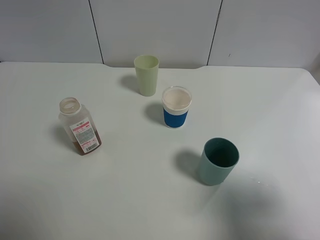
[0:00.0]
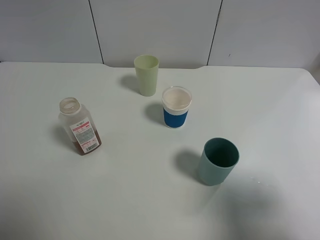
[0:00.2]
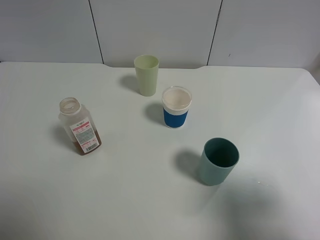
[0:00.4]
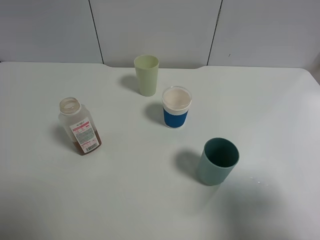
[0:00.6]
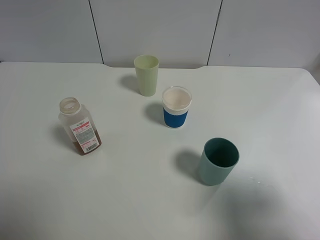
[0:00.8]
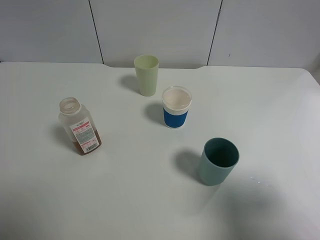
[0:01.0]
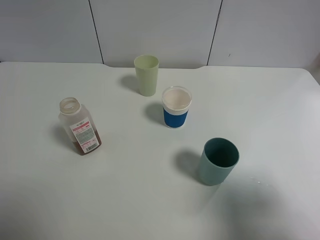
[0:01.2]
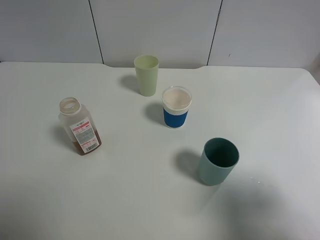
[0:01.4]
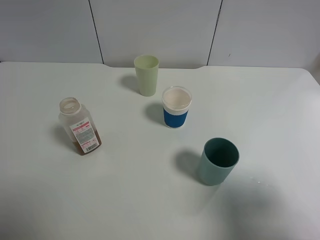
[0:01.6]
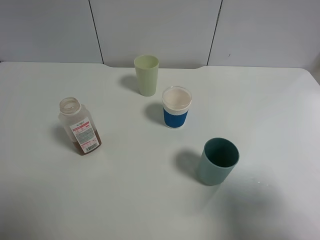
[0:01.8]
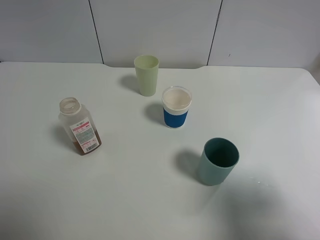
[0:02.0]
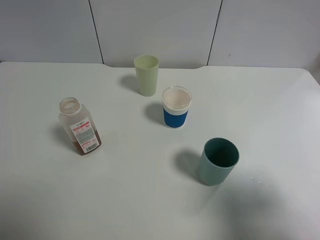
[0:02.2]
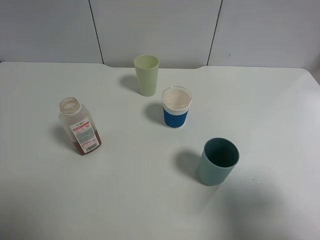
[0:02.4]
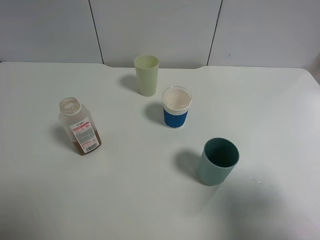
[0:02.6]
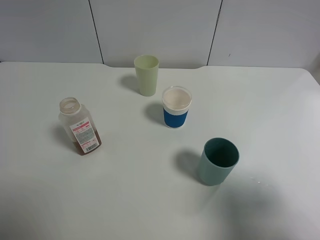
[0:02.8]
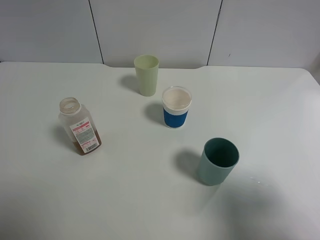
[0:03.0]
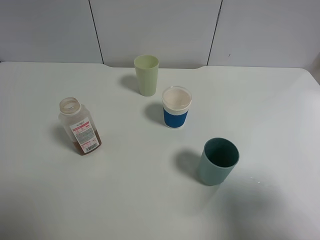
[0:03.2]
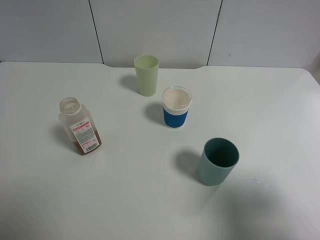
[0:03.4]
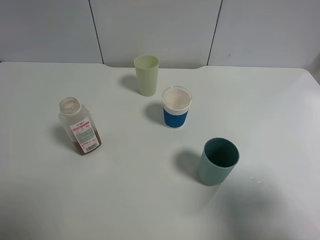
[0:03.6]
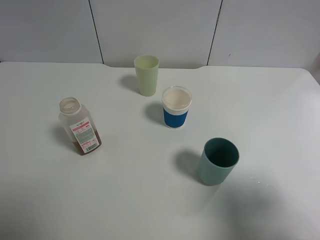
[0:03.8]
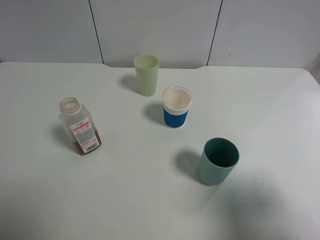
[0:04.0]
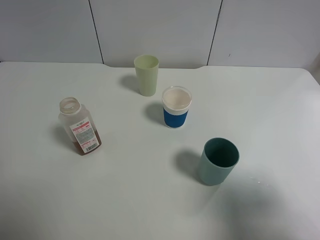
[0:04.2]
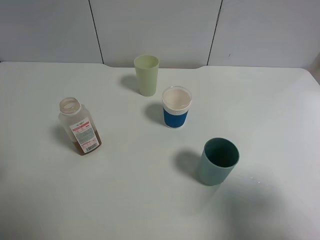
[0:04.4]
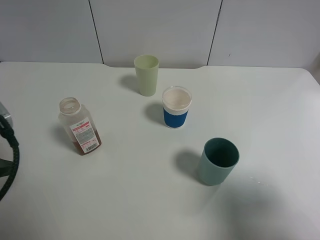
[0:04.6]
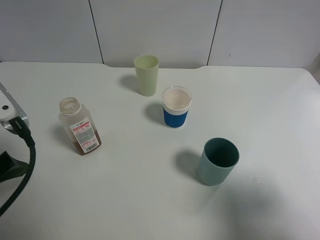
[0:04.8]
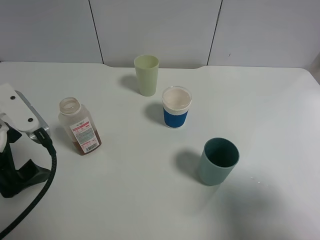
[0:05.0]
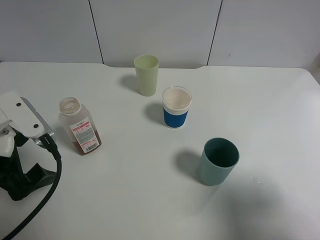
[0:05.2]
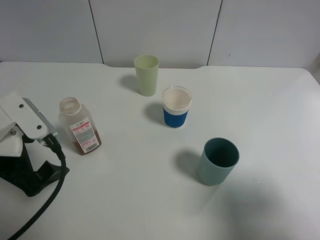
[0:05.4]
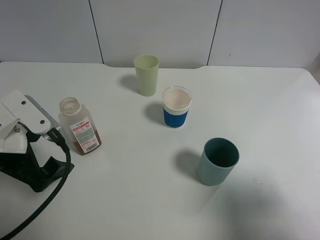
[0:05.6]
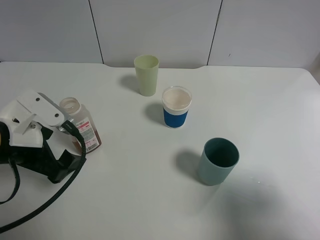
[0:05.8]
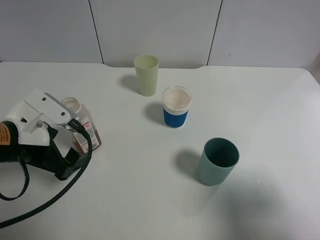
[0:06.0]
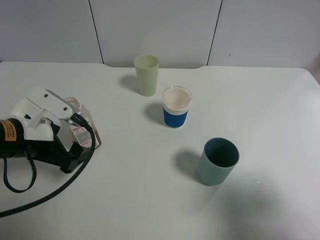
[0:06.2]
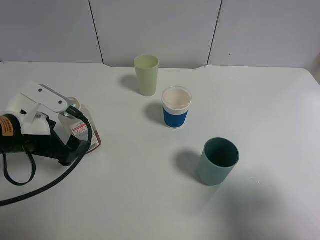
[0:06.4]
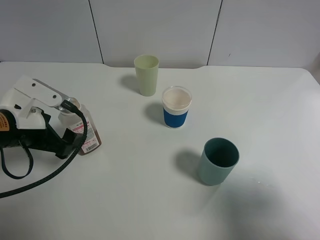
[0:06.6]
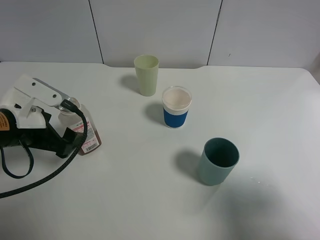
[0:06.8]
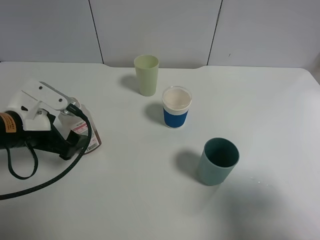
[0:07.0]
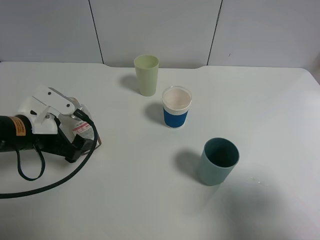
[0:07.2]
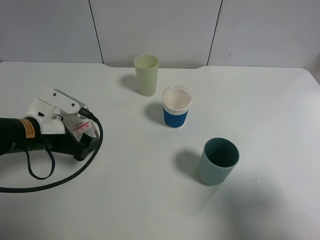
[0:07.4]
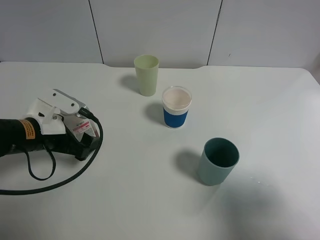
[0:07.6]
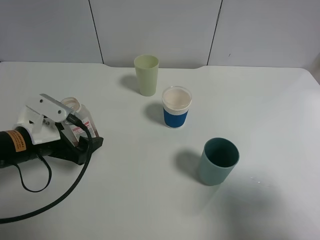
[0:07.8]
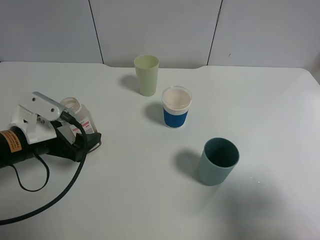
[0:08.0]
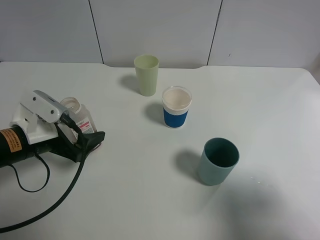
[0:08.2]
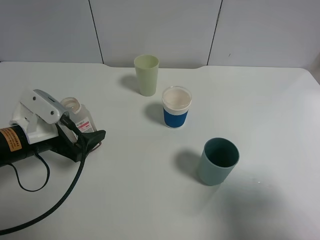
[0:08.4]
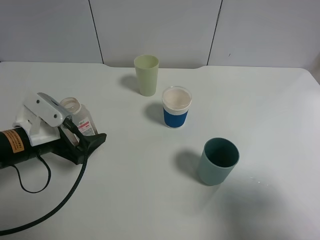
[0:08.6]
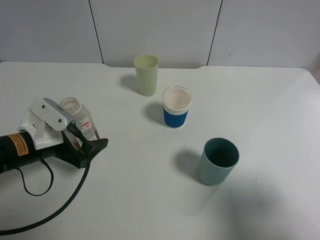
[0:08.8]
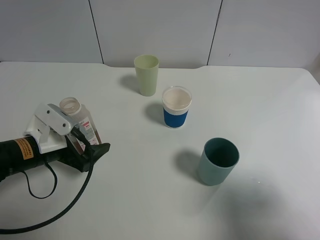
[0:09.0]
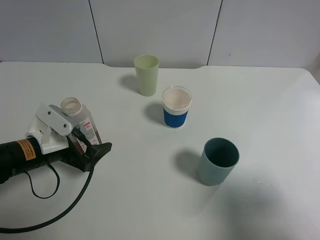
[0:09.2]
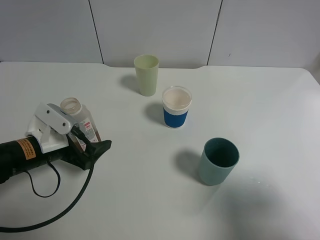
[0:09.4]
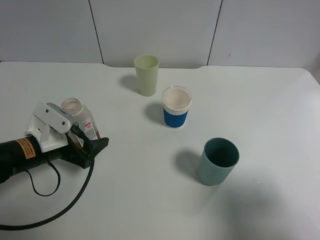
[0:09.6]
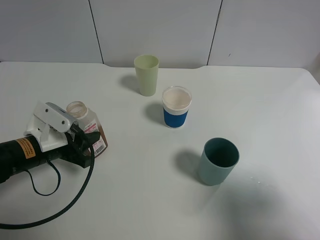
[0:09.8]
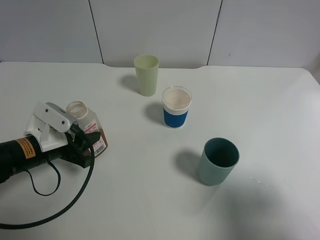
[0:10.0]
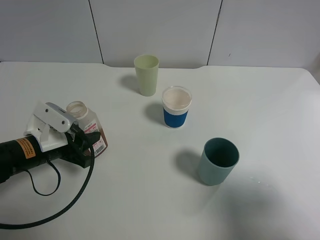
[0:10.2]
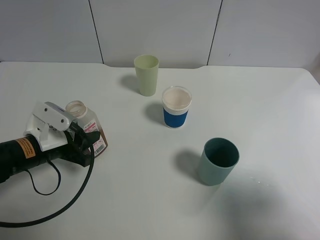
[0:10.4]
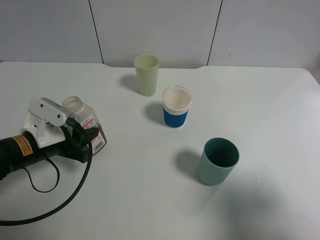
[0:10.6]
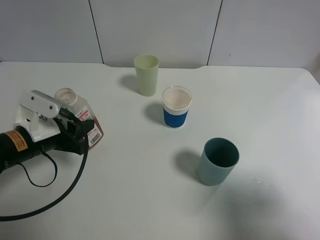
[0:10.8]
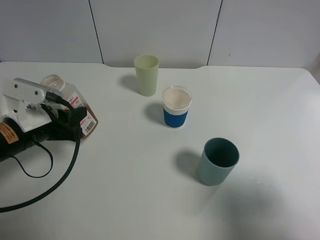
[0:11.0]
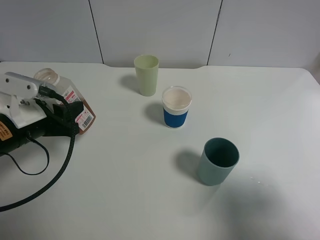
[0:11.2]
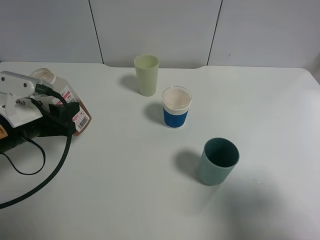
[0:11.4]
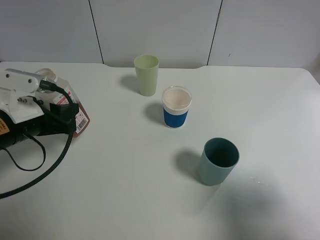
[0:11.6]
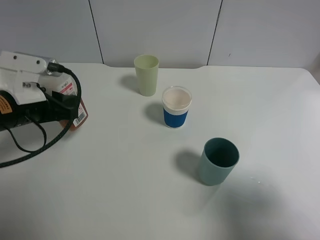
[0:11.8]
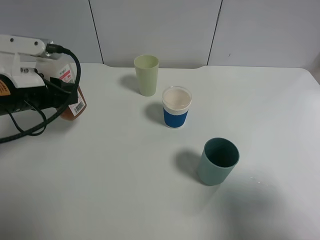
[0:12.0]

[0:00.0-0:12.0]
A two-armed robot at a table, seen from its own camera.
Task of the whole recording: use a gripper to hold the bottle of the drink and pour it into a random cup.
Step, 0:00.0 to 0:10.0: Grasp the cranberry juice bottle with the left gripper.
0:00.0 to 0:03.0: Neither gripper changes place.
0:04.4 to 0:06.0: The left gripper shifts approximately 15 cm downward, to the right and forward.
0:06.0 to 0:07.6: The left gripper moves roughly 5 cm.
0:07.6 to 0:09.0: The grippers make only small movements.
0:09.0 to 0:10.4: The left gripper closes up.
0:10.4 to 0:12.0: The left gripper heads upward, covering about 10 cm.

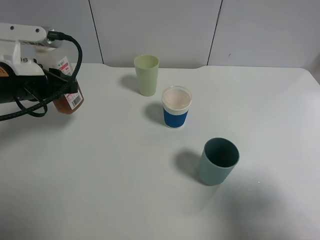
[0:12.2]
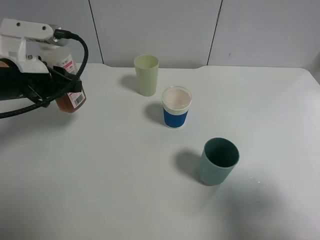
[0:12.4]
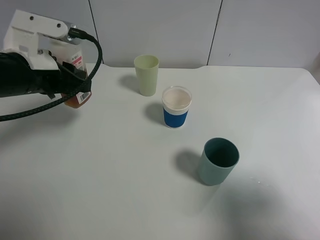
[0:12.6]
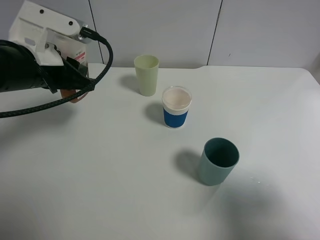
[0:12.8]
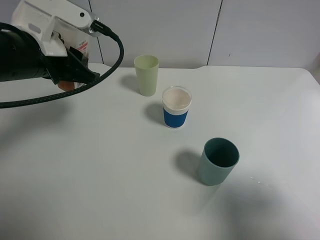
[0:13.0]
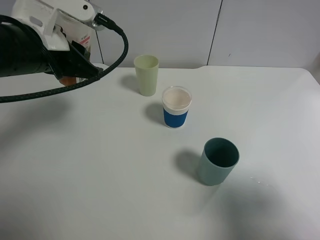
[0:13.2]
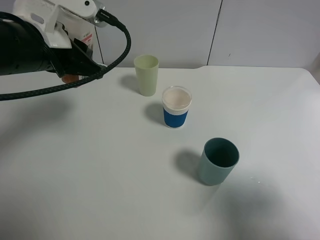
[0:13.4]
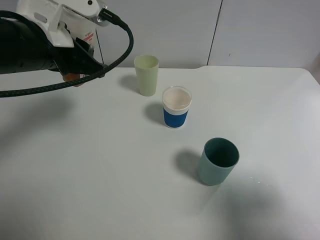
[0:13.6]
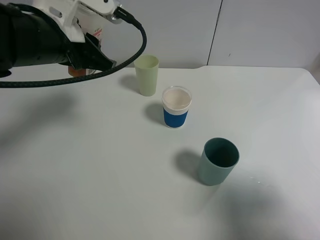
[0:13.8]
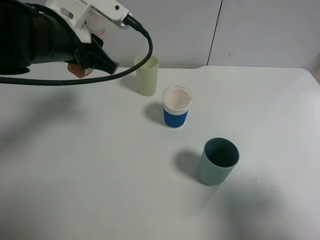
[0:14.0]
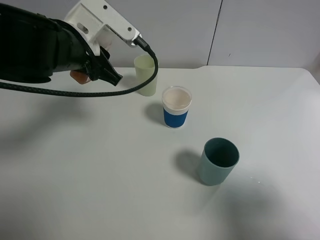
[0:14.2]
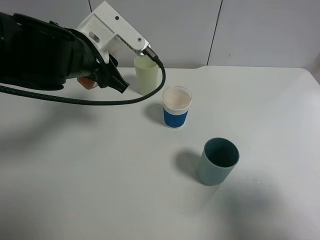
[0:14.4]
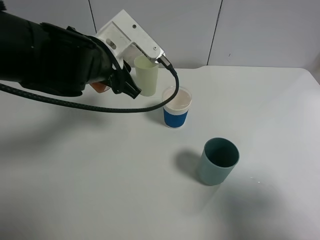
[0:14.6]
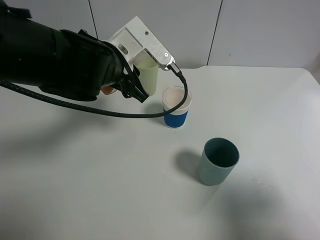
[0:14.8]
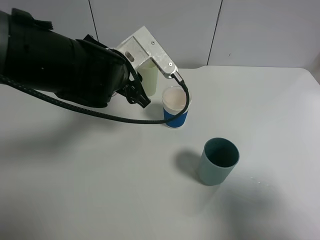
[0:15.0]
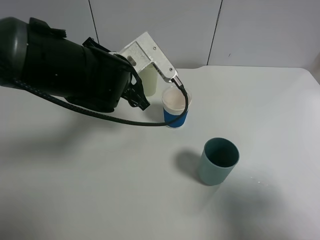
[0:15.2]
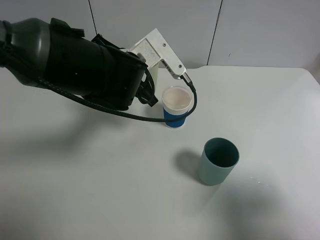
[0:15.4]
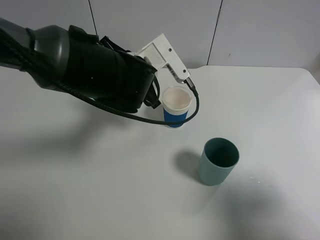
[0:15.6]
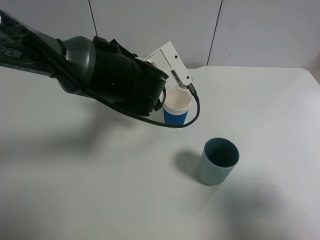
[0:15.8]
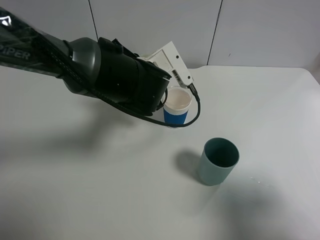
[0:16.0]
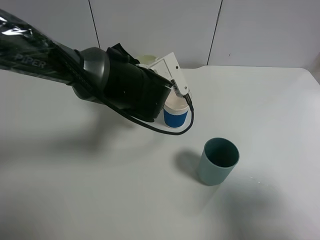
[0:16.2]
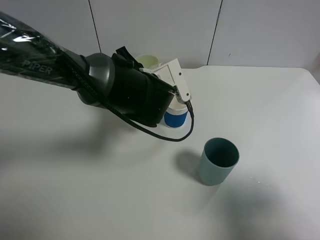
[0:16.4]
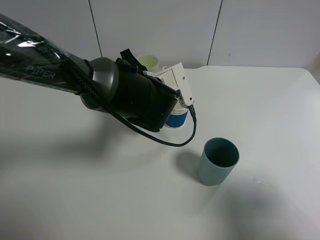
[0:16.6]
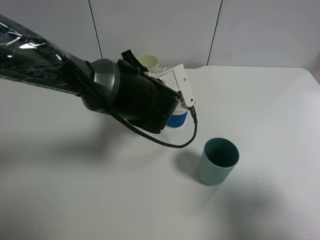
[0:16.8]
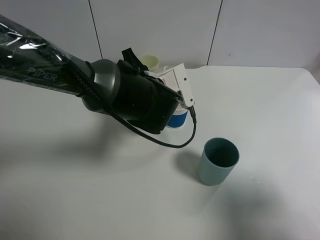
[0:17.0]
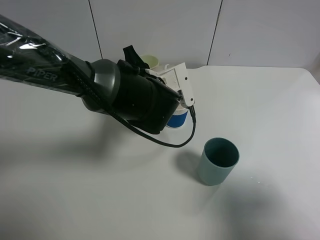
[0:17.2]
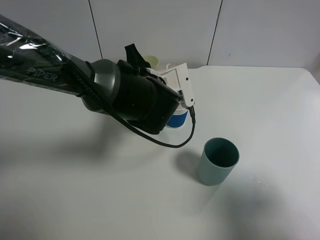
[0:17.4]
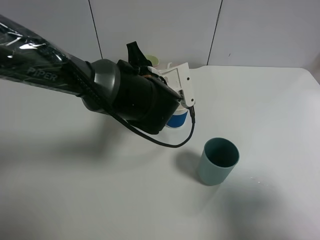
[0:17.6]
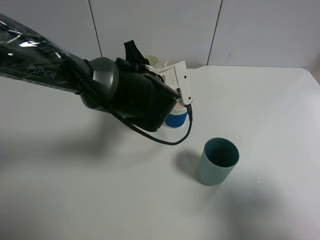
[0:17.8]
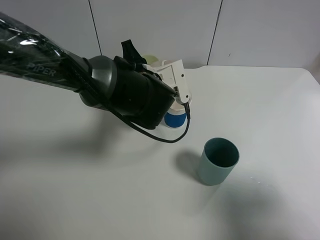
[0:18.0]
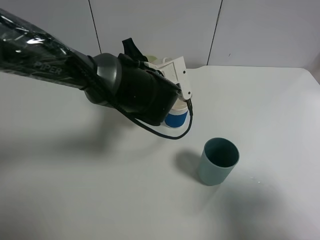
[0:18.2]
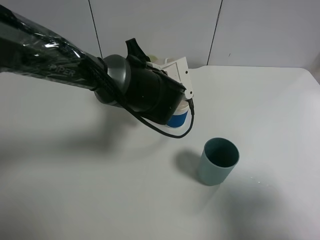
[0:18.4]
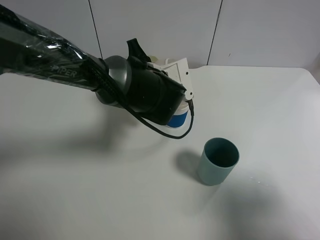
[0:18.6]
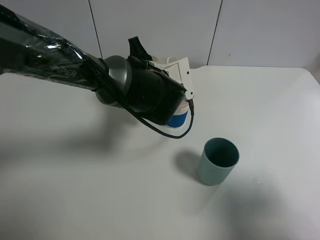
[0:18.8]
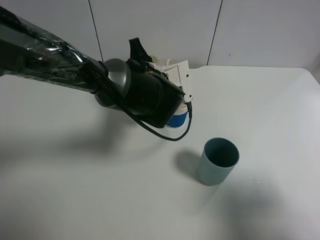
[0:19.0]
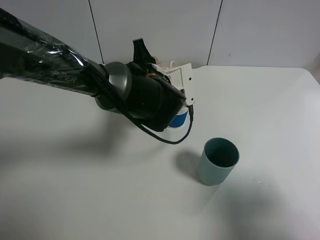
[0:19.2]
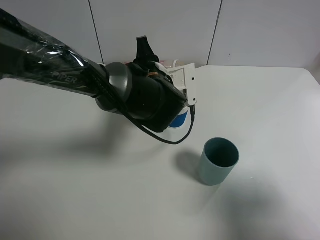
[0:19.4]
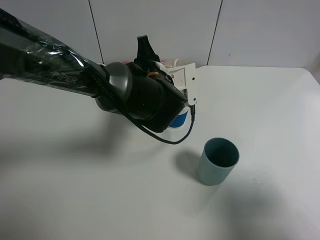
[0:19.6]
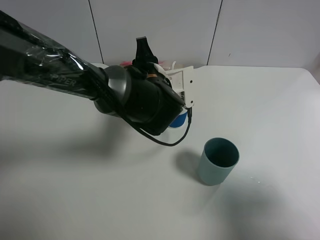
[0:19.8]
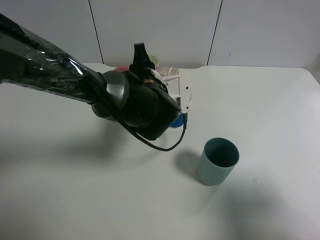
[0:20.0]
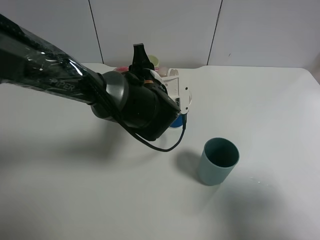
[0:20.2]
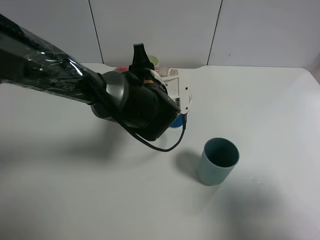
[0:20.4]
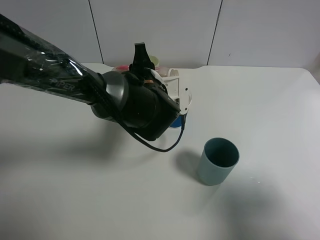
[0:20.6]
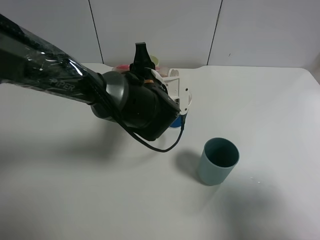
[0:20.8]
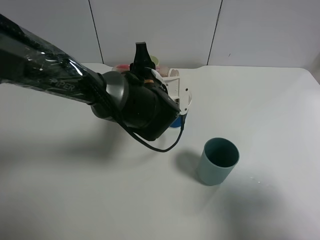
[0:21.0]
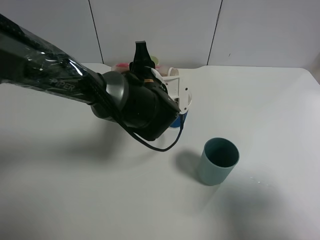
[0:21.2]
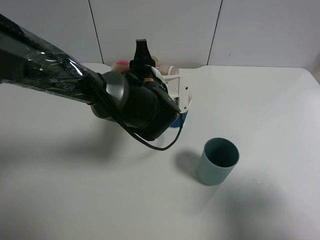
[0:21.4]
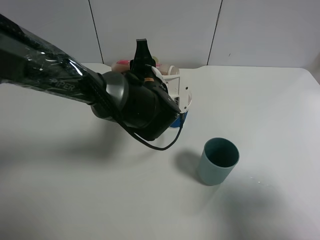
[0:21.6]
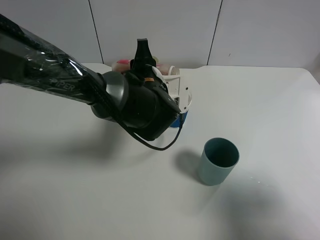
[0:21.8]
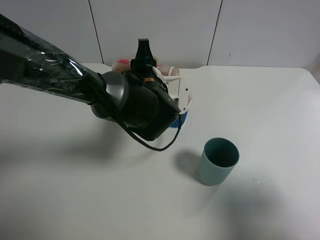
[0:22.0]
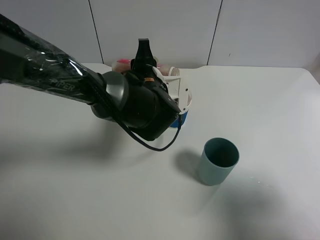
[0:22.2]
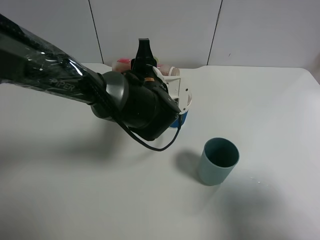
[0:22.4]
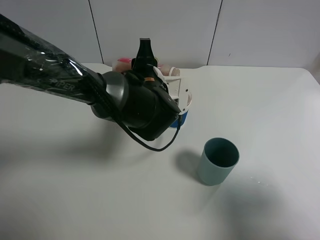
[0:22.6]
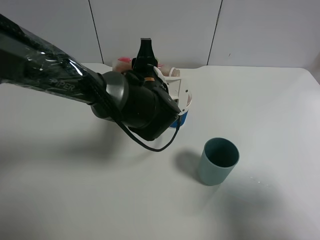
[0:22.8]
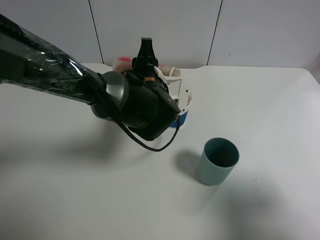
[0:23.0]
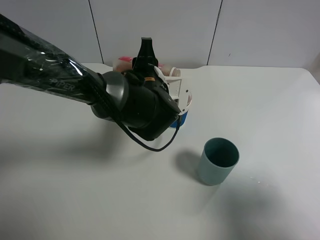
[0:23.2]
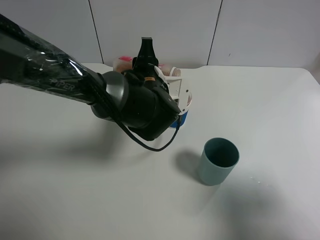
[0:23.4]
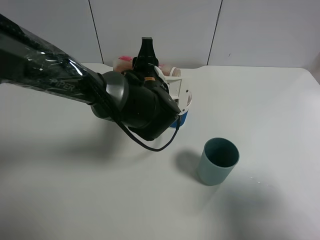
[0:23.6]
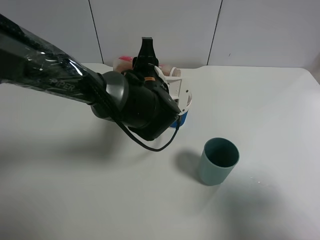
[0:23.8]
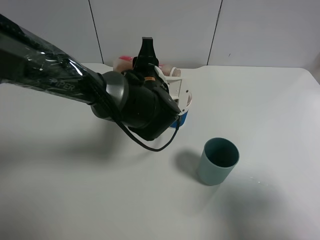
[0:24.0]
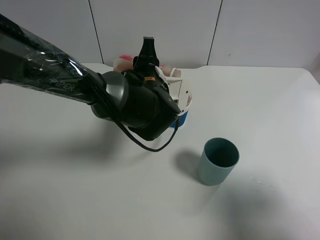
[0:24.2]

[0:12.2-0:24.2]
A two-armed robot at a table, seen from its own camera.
Task of the whole recording: use a gripper to hold the bottle of the drink and pour it into a random cup.
0:12.2 to 0:13.8: The left gripper heads to the right and upward, covering some 10 cm.
0:13.8 to 0:15.2: The left gripper goes approximately 10 cm to the right and downward.
0:15.2 to 0:16.6: The left gripper shifts by approximately 5 cm.
0:16.6 to 0:19.8: The grippers make only small movements.
0:19.8 to 0:21.2: The two grippers keep their place.
0:21.2 to 0:22.6: The grippers make only small movements.
0:22.6 to 0:24.2: Both grippers stay put.
